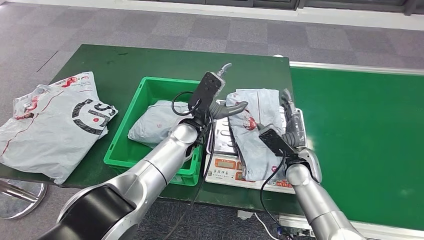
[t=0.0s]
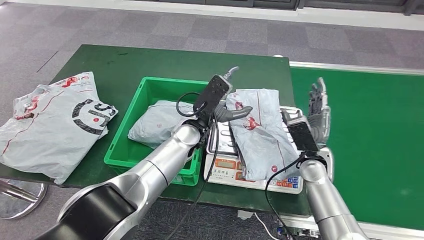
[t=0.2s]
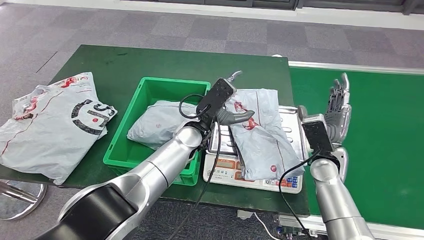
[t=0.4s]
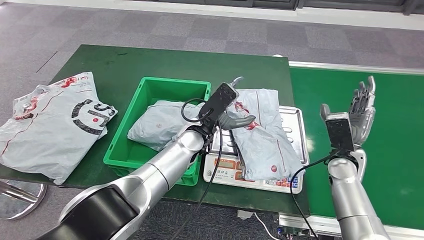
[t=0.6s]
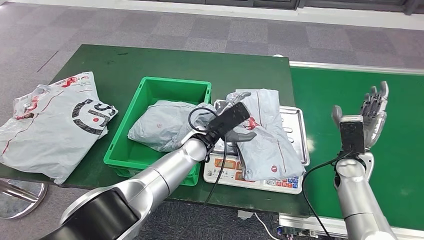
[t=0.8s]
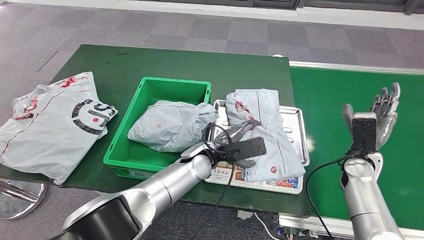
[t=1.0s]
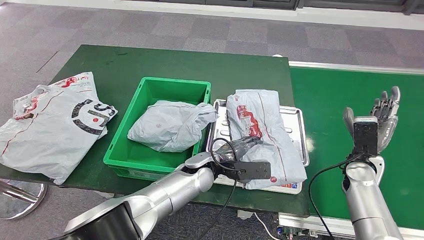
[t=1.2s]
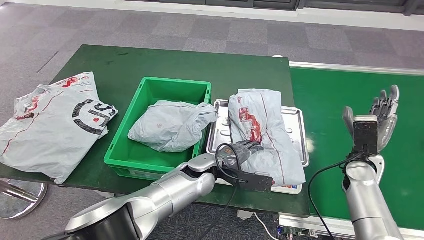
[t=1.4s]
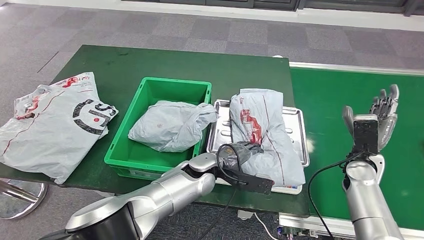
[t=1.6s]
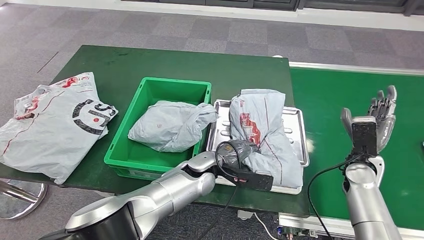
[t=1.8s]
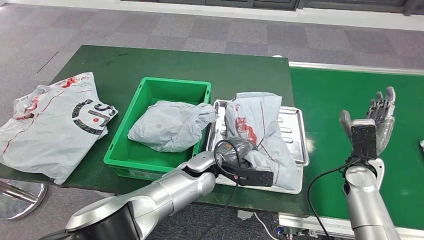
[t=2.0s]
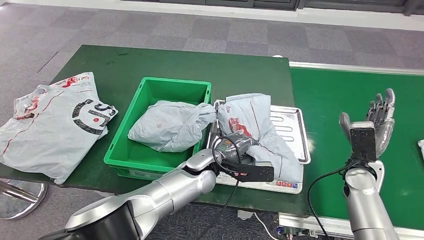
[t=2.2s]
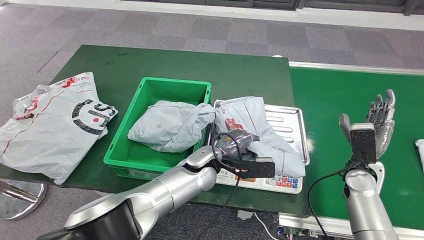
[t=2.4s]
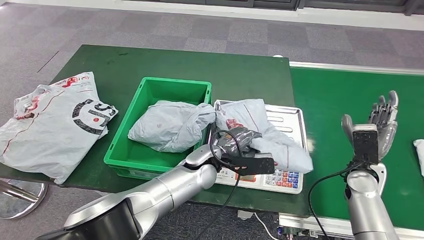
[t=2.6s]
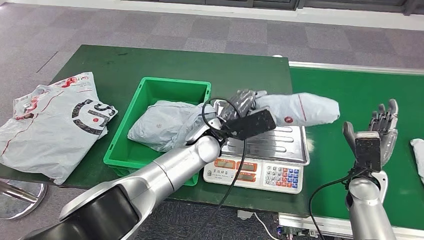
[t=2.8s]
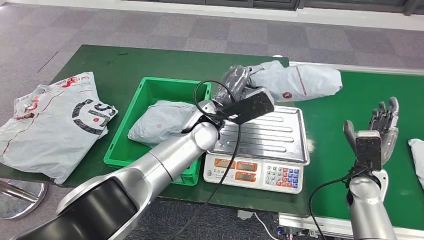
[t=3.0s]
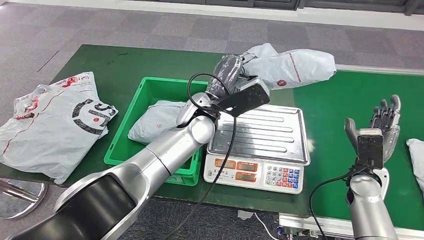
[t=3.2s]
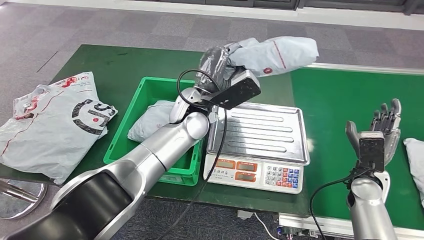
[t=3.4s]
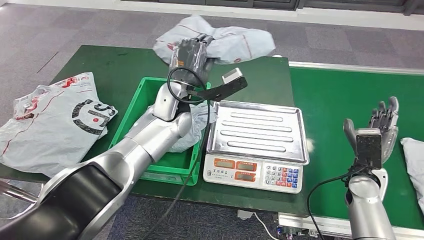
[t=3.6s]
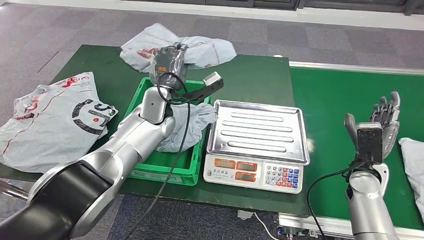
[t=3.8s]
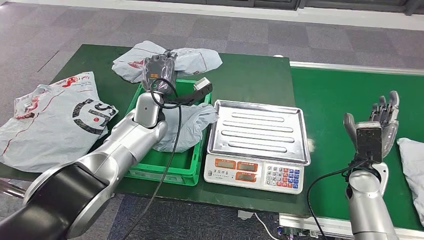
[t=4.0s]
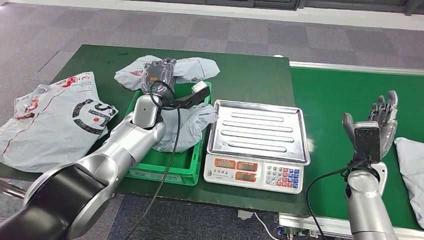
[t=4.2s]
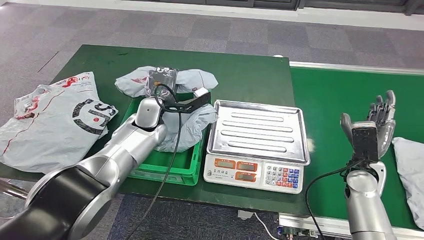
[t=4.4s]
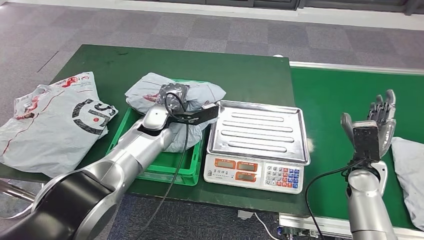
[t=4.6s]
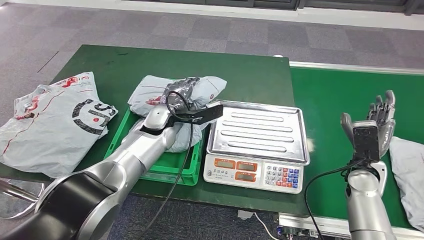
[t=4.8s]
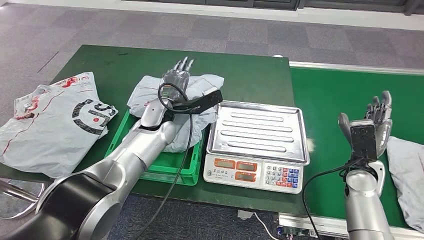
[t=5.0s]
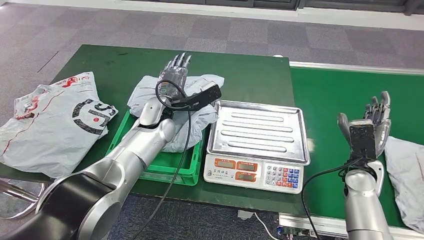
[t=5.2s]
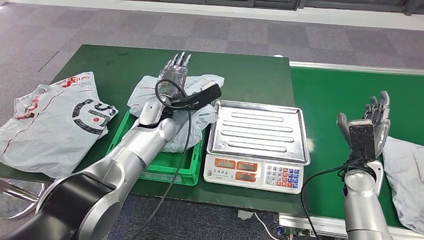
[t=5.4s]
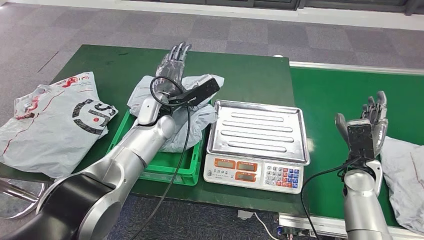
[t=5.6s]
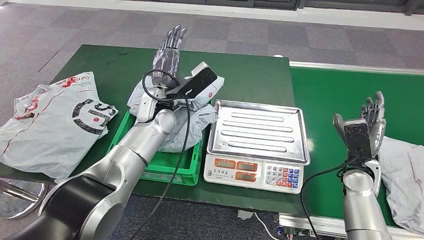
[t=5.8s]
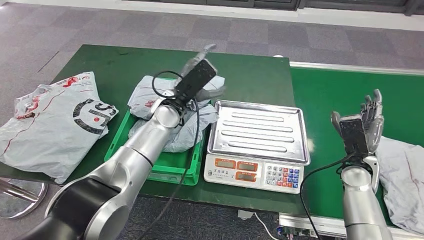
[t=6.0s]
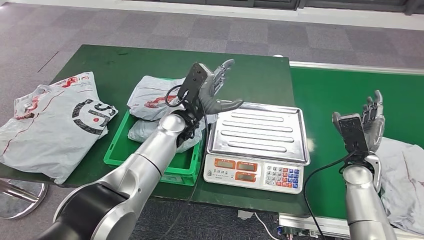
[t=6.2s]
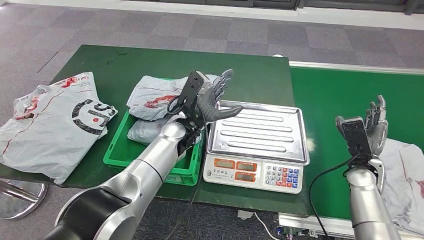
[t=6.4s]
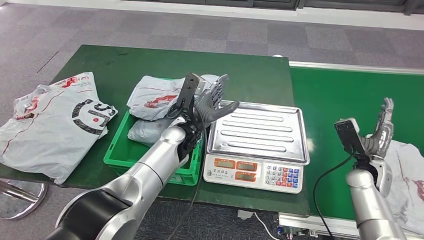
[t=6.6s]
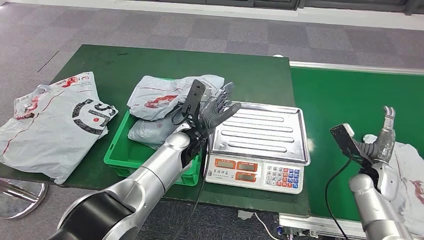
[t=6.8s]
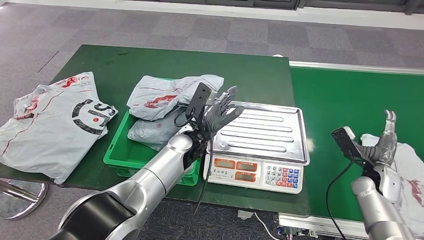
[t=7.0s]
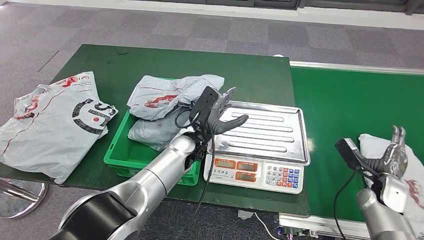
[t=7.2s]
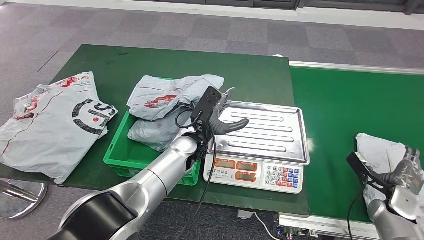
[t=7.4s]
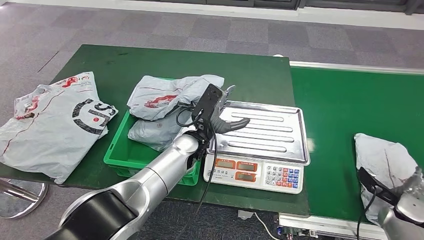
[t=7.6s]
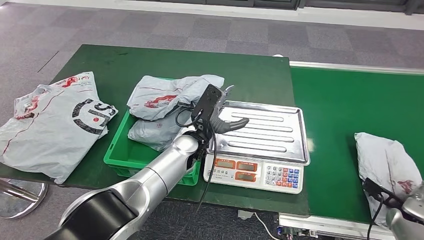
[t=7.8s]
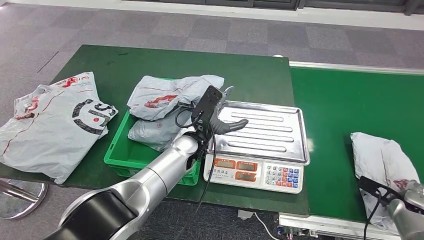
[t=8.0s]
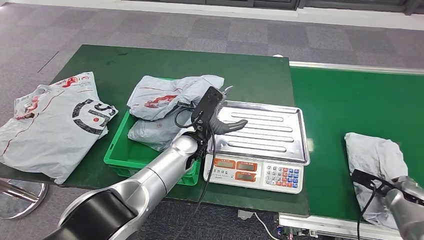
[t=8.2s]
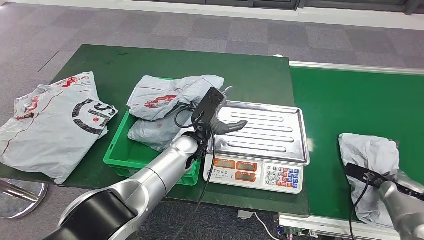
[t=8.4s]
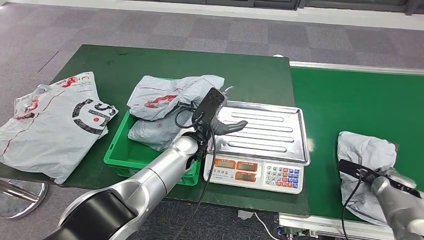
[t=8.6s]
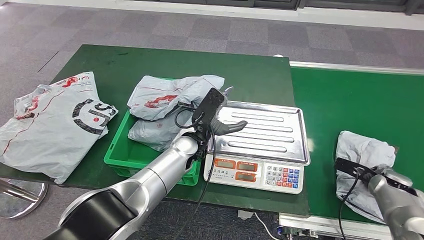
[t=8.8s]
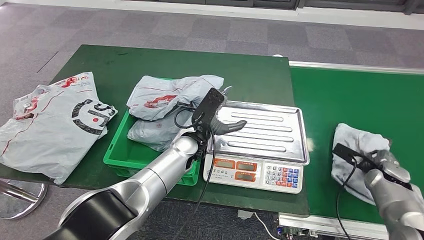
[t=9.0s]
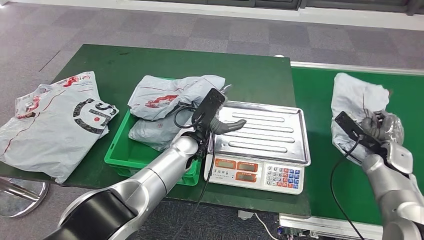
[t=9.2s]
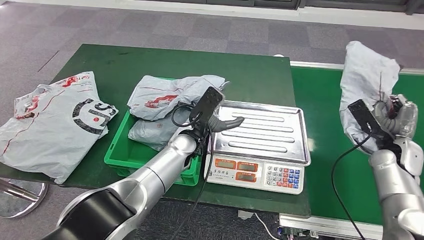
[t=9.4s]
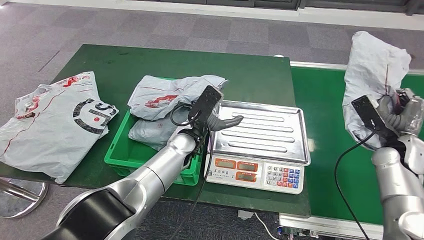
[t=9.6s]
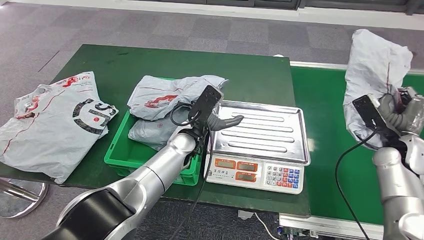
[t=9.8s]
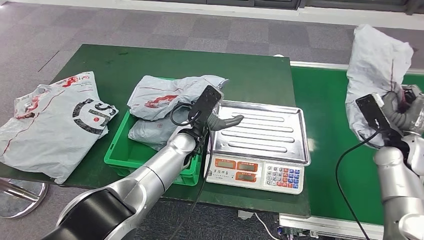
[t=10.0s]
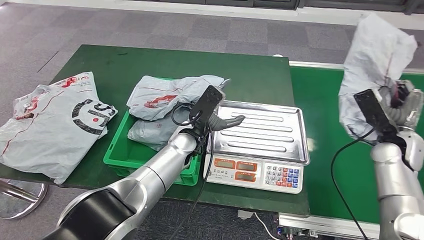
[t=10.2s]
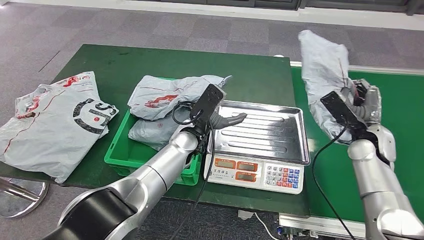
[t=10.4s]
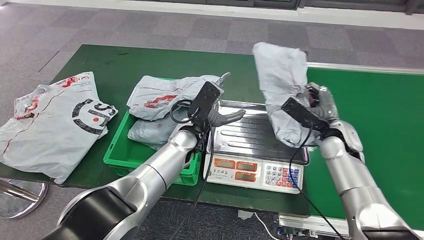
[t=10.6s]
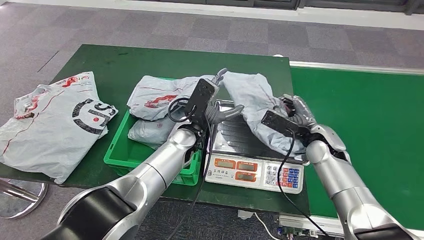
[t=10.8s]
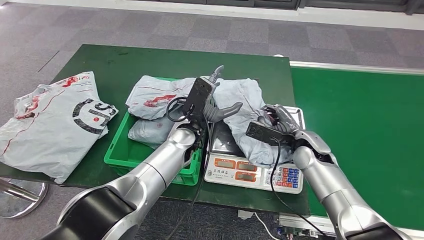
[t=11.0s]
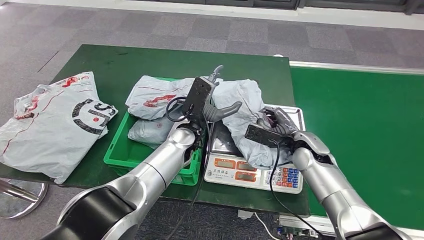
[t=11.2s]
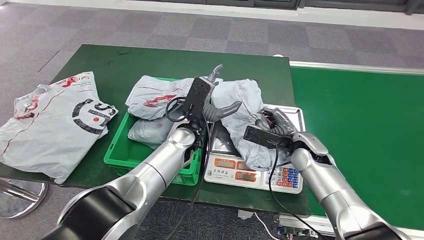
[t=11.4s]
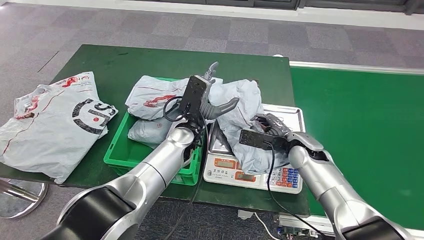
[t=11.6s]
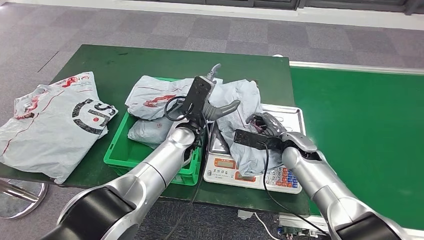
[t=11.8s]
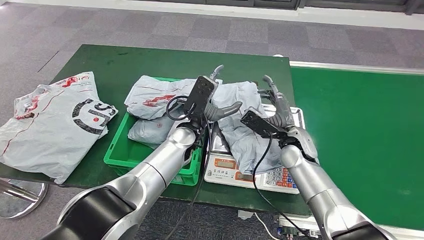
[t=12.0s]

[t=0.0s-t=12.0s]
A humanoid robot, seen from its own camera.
Step, t=0.8s to t=3.8s: Pick up the parcel from the inbound machine.
Step, t=4.0s to t=6.8s: Place the parcel into the delivery box.
Step, t=7.0s to t=10.0s: Pick up the parcel from the conveyor belt.
t=4.4s to t=6.0s: The left hand shifts about 5 cm to the right.
t=7.6s to t=9.0s: The right hand goes about 10 cm forward.

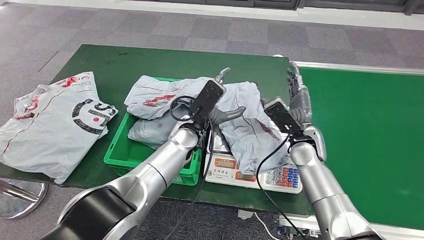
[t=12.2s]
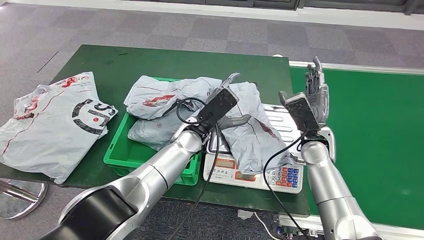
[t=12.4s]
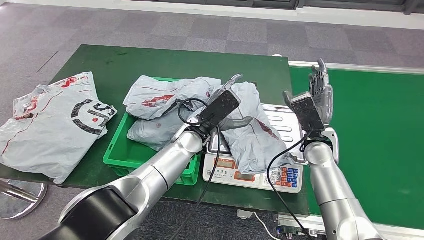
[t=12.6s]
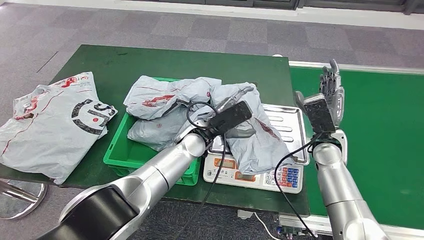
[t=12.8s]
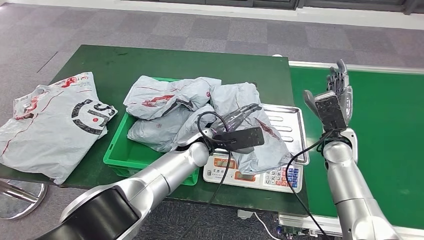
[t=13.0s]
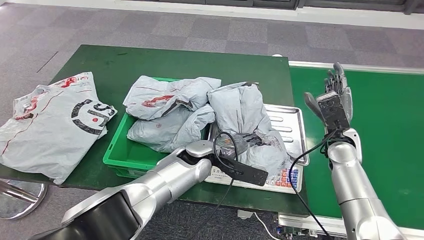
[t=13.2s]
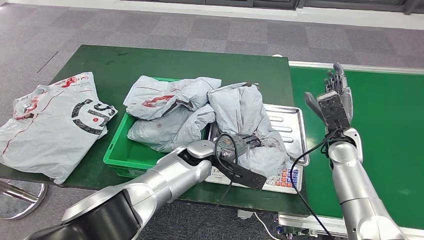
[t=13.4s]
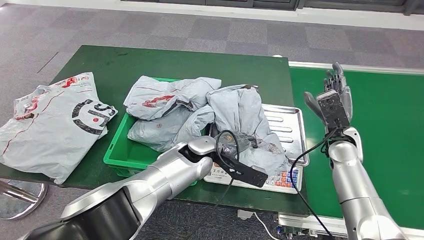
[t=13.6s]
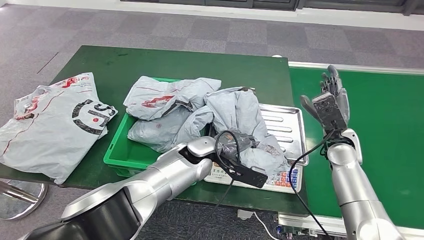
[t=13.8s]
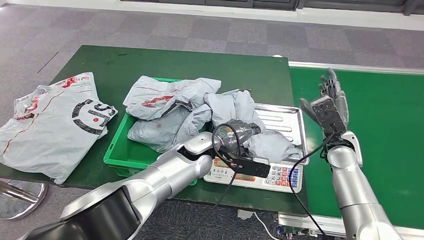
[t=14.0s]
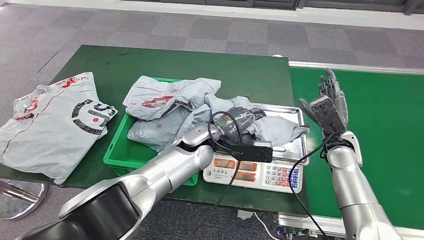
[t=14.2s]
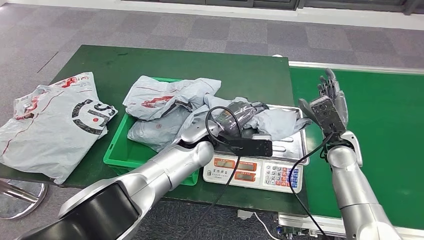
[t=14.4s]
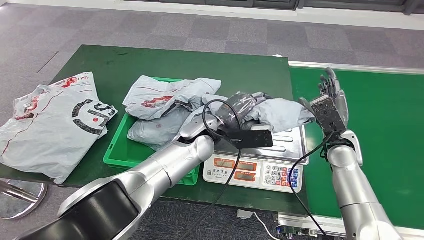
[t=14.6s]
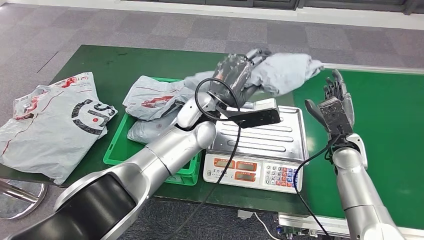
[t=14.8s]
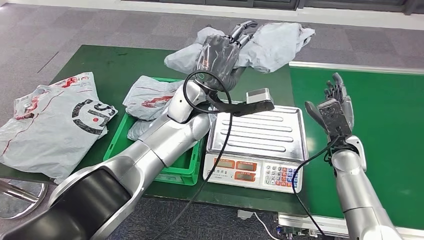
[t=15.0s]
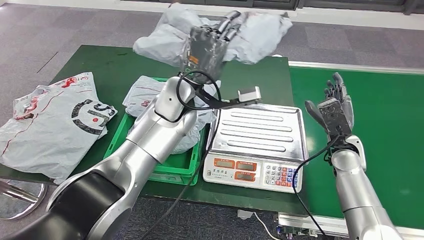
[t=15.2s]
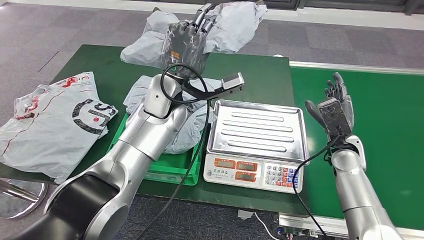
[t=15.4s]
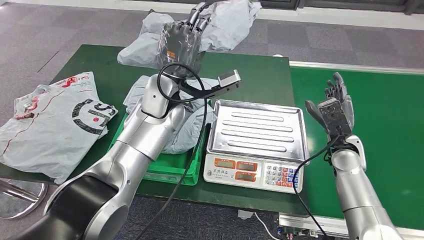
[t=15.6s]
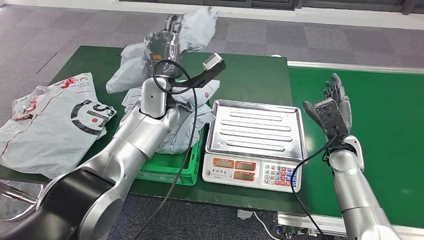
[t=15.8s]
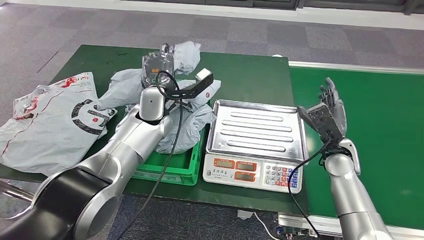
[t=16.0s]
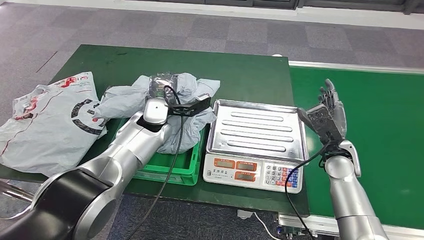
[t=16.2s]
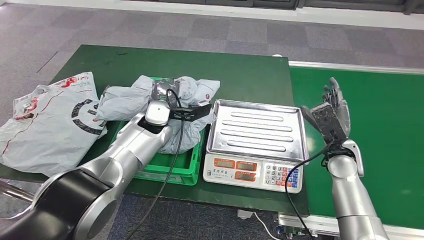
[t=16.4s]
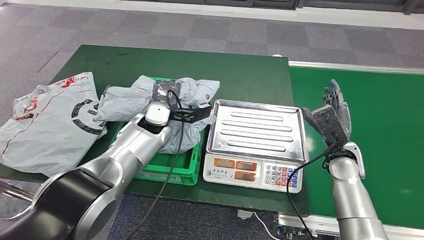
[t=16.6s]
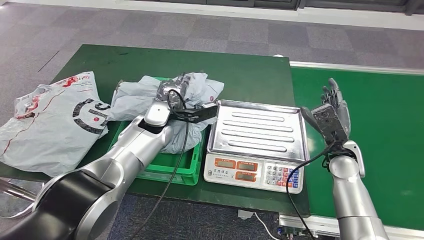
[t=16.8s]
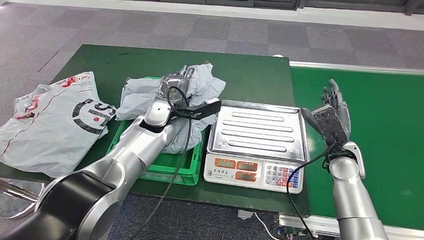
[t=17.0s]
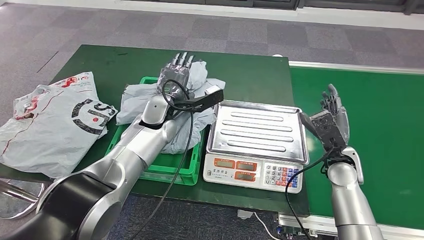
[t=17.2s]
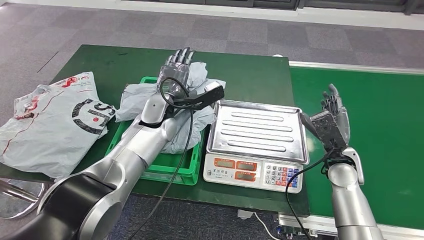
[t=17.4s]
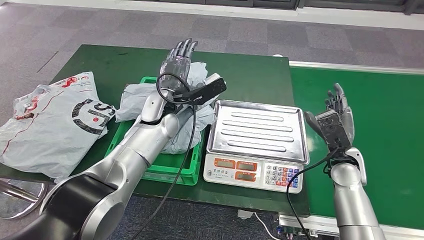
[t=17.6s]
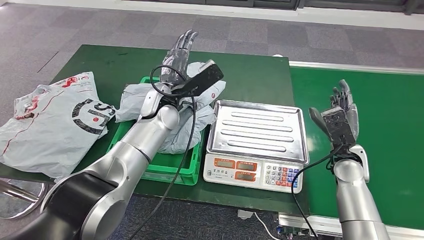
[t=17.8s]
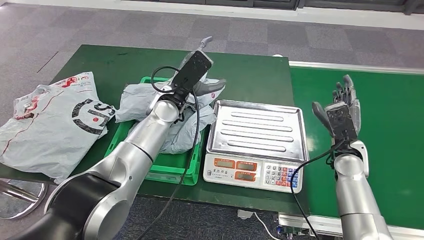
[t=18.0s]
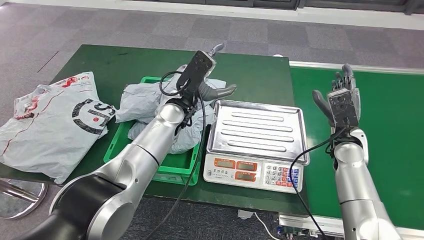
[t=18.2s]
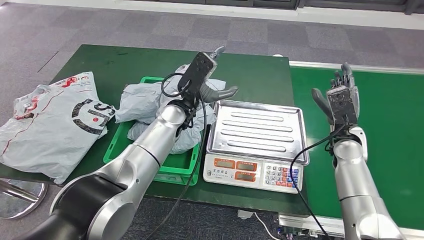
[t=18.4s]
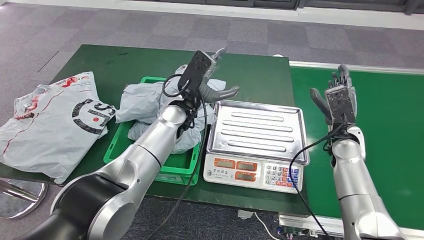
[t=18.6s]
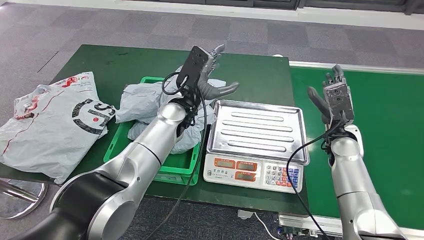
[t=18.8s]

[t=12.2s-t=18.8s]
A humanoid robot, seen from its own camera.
Step, t=13.0s to t=15.4s: Pick up the parcel from the inbound machine.
Step, t=15.6s to t=18.8s: Place the parcel into the delivery box.
t=17.2s to t=18.8s: The right hand is displaced forward by some 5 cm. The left hand heads to the right, covering roughly 5 cm.
